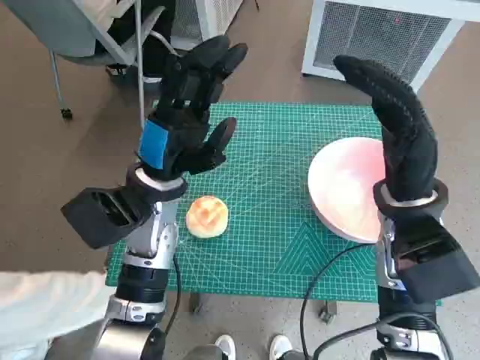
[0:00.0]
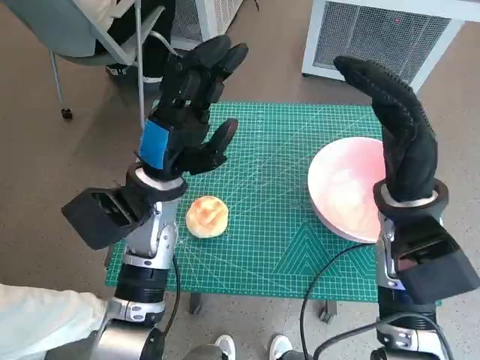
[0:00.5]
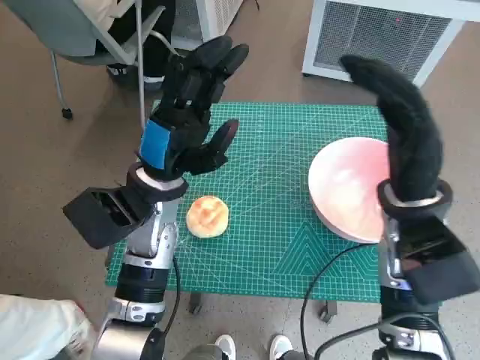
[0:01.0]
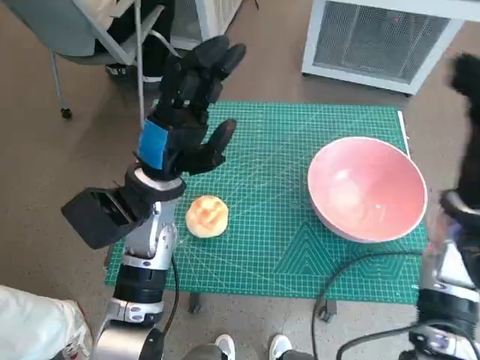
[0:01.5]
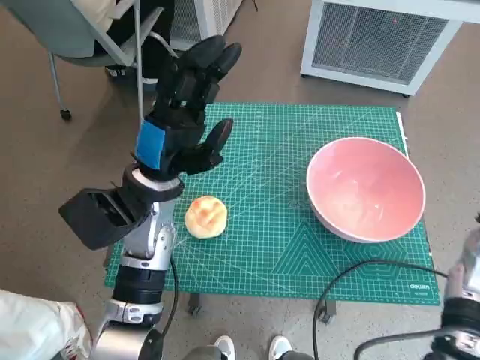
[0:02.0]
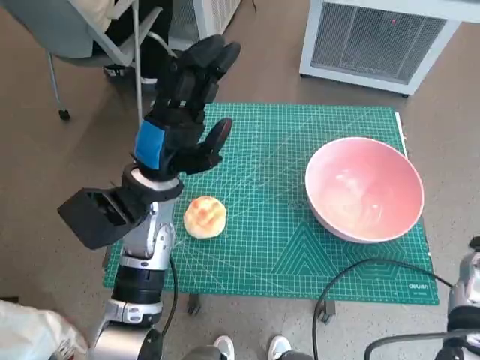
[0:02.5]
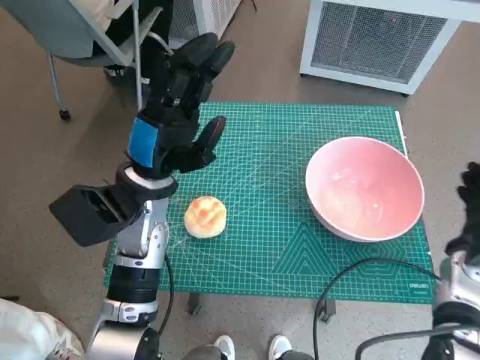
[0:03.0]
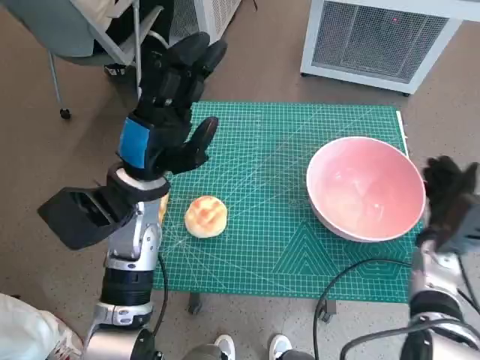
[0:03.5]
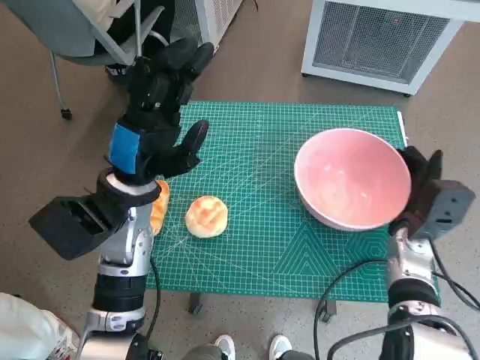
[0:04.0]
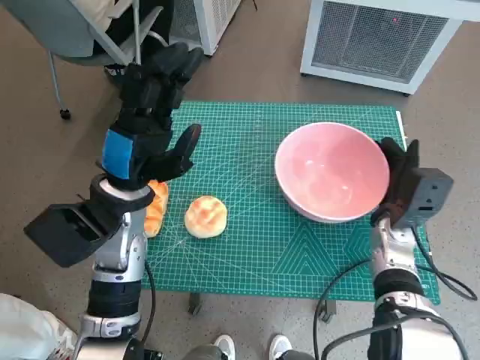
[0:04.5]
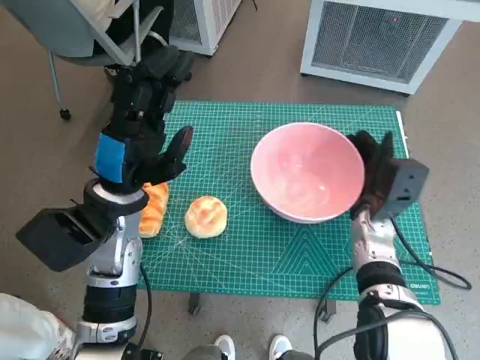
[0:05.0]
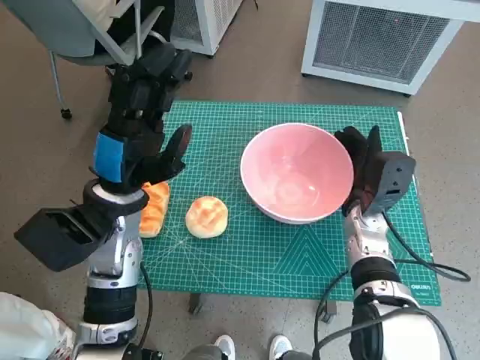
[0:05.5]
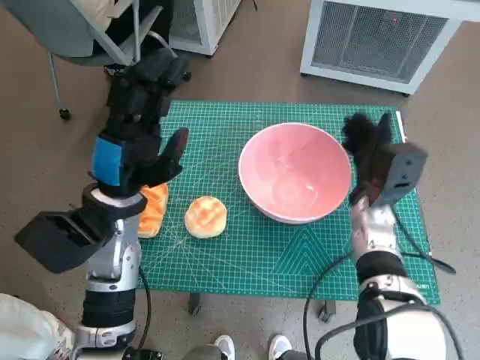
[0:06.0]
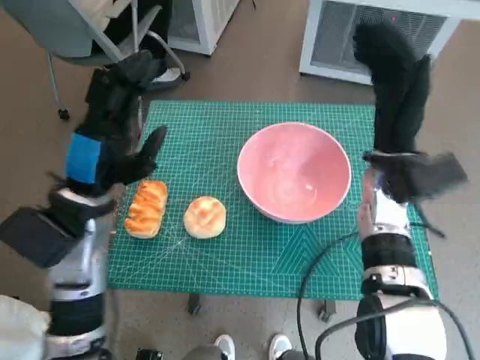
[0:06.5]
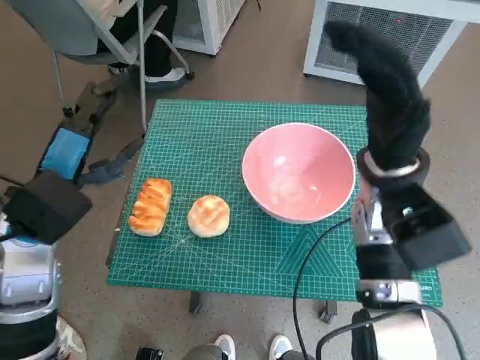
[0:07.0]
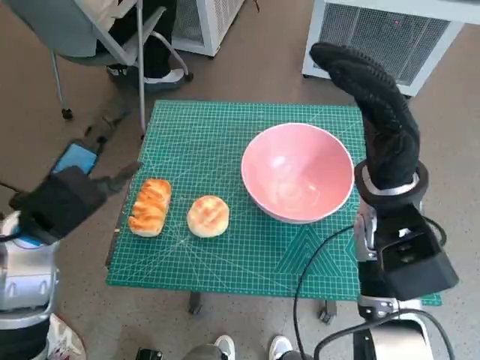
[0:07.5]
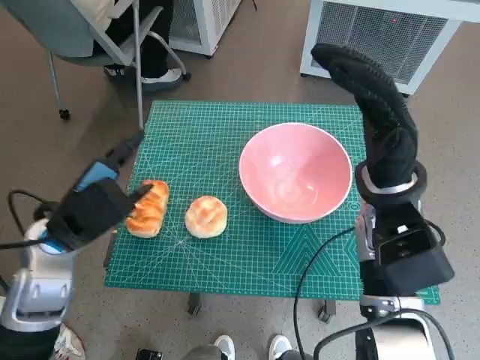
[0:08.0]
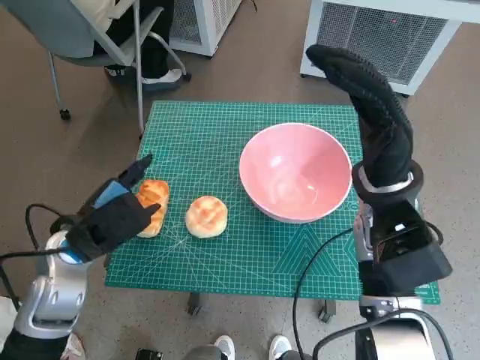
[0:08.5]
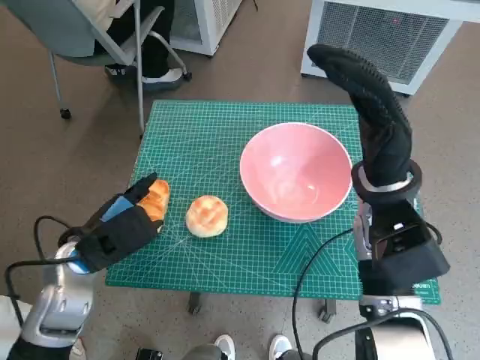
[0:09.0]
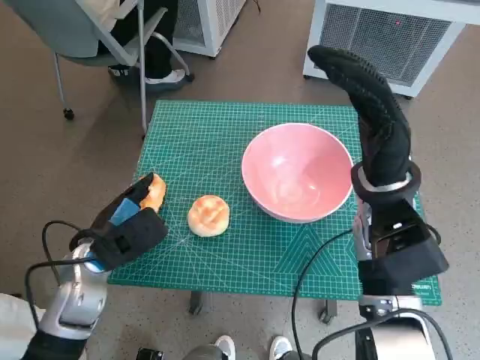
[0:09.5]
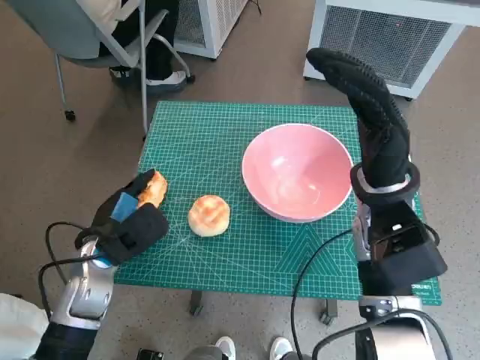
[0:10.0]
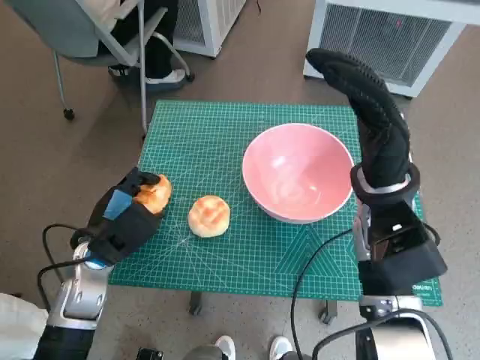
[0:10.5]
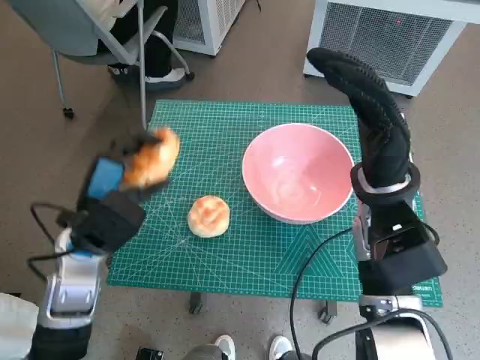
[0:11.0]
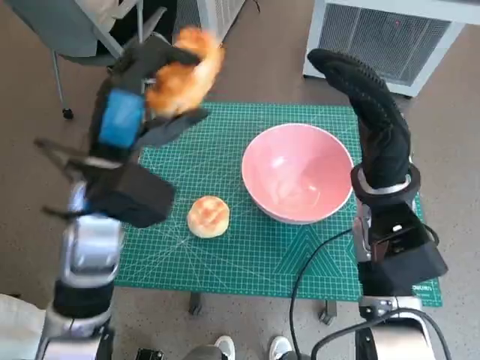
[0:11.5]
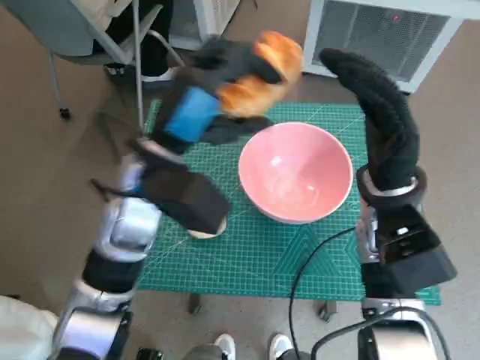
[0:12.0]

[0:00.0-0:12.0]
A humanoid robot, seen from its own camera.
Task of the whole recording: Push the bowl to the center of the table and put the bread into the bowl.
Step, 0:00.0 to 0:06.0: Move the pink bowl to the center of table with right hand.
Step, 0:06.5 to 0:10.5: Grasp the long bread with left hand.
0:02.0 to 0:04.0: The right hand moves downward and to the left, approximately 10 cm.
0:04.0 to 0:06.0: The right hand is displaced to the left by approximately 5 cm.
0:06.0 to 0:08.0: The left hand travels to the left by approximately 5 cm; the right hand goes approximately 10 cm upward.
0:08.0 to 0:10.0: The left hand is displaced downward by approximately 10 cm.
0:10.0 to 0:12.0: The left hand is displaced upward and to the right by approximately 20 cm.

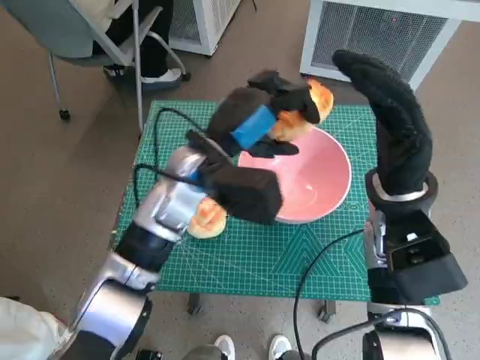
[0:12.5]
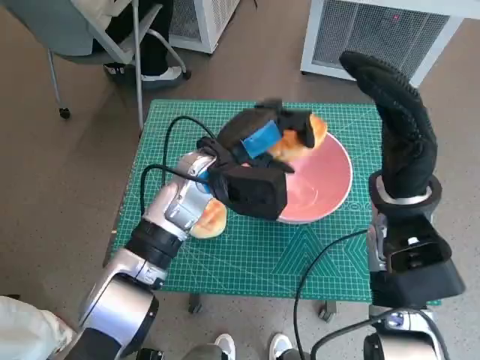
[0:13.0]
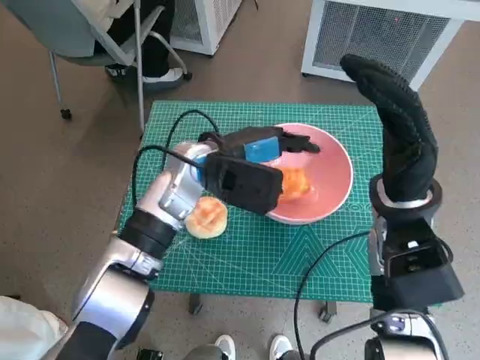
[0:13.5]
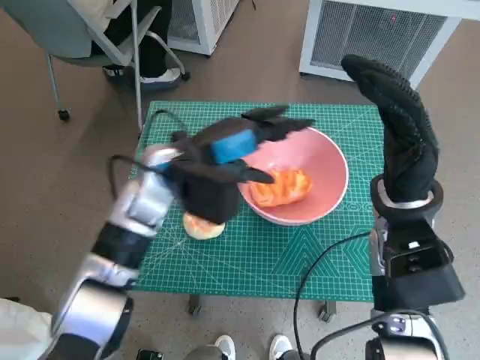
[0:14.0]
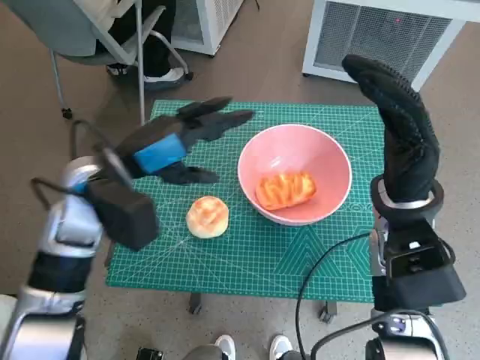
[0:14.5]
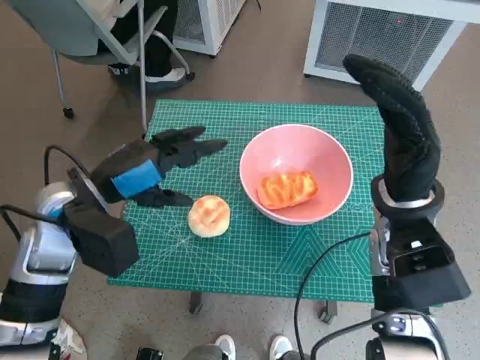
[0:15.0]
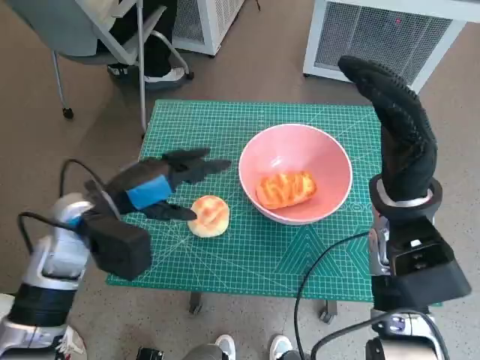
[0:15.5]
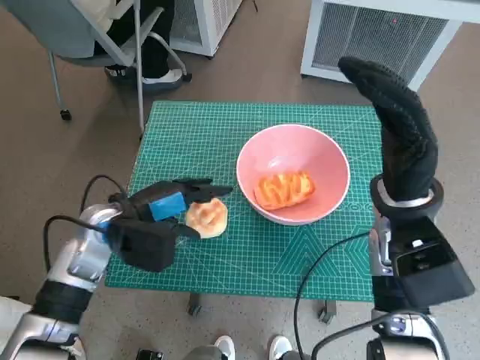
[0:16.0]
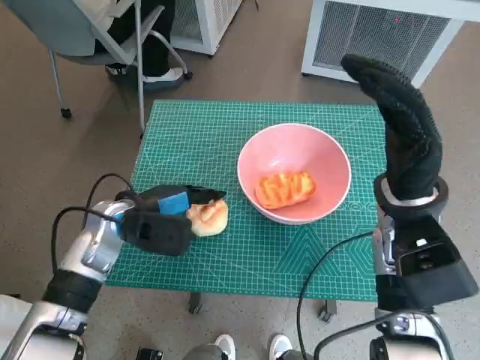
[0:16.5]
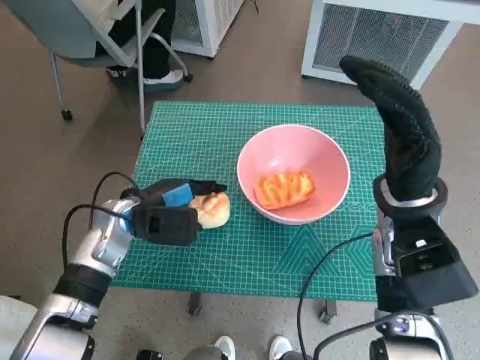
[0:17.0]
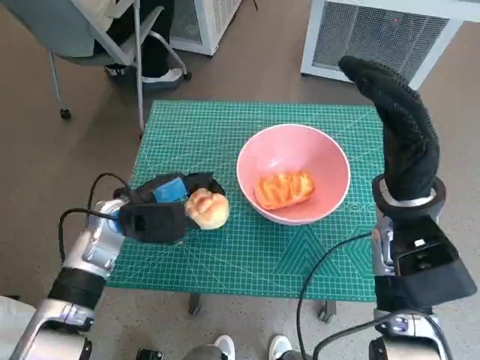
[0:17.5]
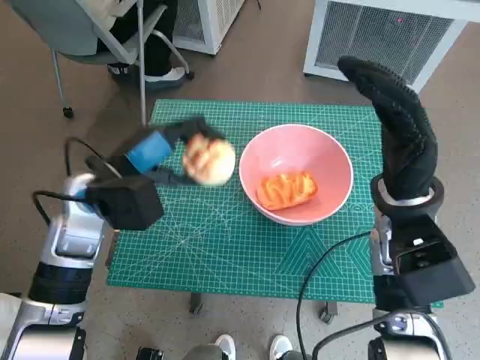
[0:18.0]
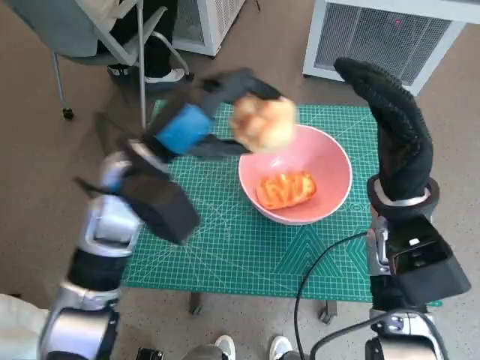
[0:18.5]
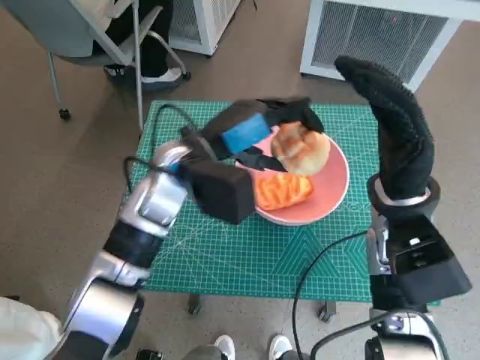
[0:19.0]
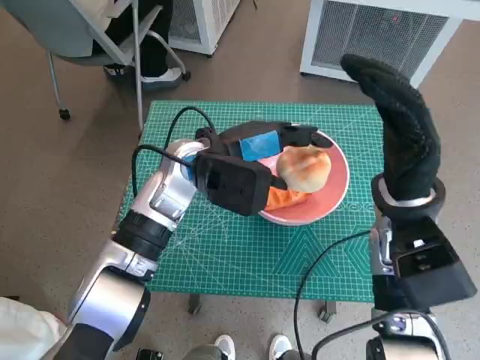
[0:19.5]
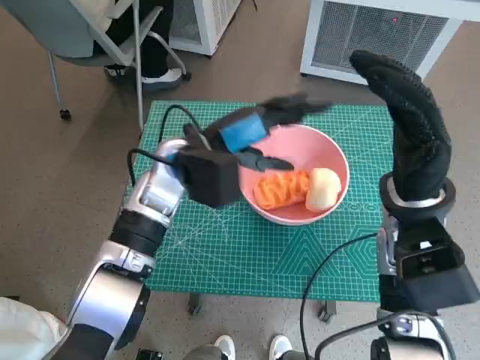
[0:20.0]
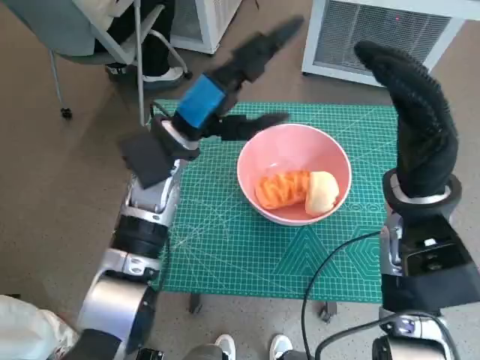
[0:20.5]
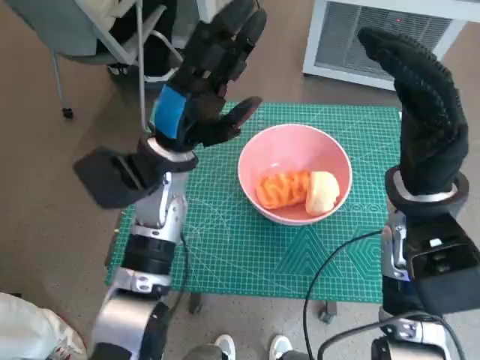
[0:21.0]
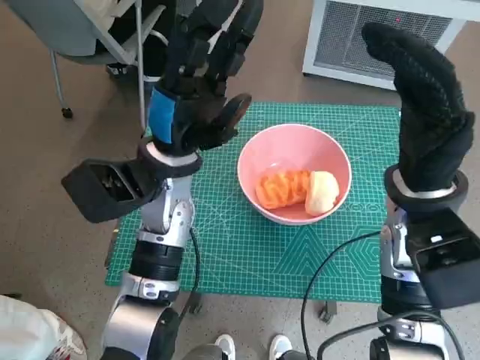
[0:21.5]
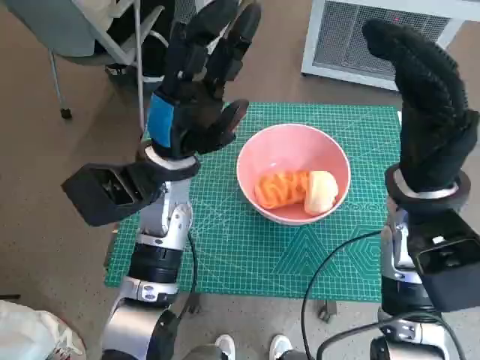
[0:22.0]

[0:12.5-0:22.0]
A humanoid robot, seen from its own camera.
Task of the whole recording: Push the bowl to the center of the table and put the bread into the bowl.
Step, 0:14.5 to 0:16.5: Grasp the round bread with left hand.
Step, 0:17.0 to 0:20.5: Place the round bread in pink bowl with left hand.
0:12.5 to 0:14.5: The left hand travels to the left by approximately 10 cm.
0:14.5 to 0:16.5: The left hand heads downward, covering some 10 cm.
0:16.5 to 0:18.0: The left hand travels upward by approximately 5 cm.
0:18.0 to 0:20.0: The left hand moves to the right, roughly 10 cm.

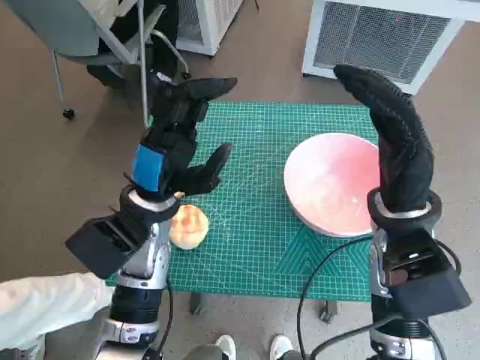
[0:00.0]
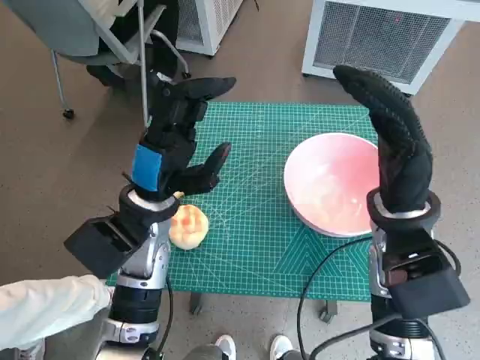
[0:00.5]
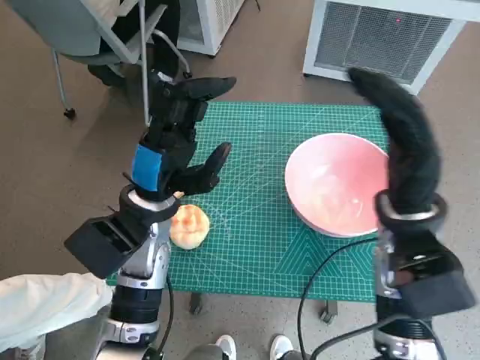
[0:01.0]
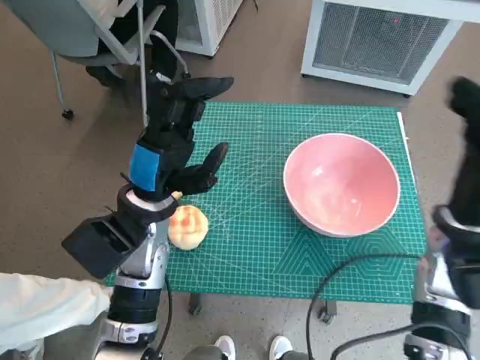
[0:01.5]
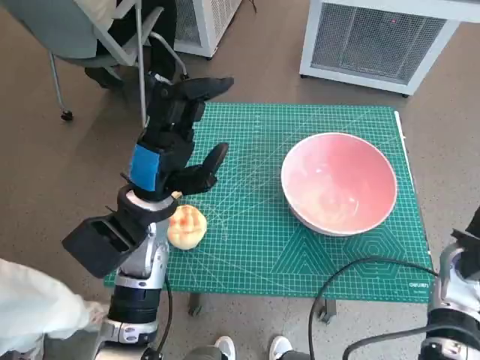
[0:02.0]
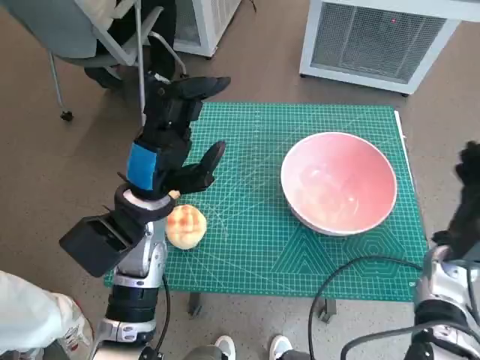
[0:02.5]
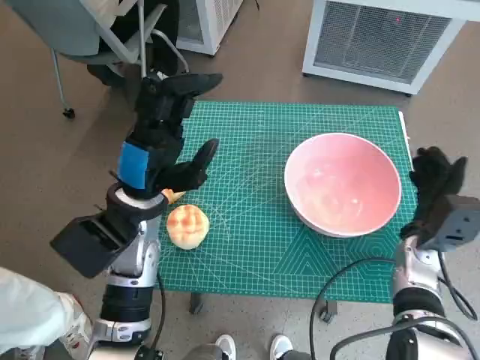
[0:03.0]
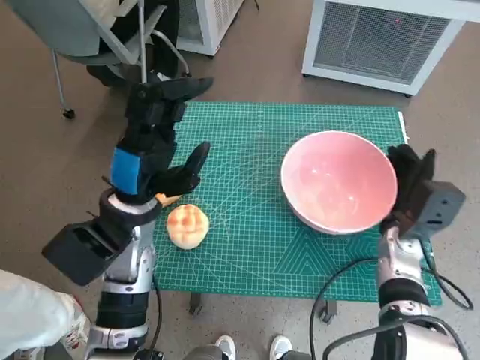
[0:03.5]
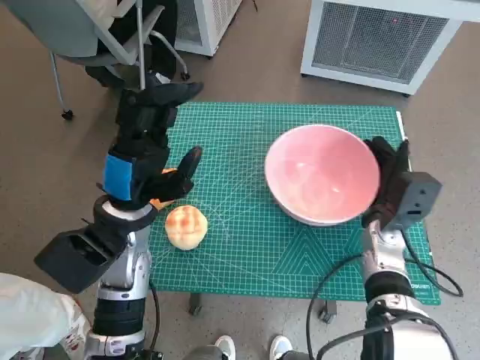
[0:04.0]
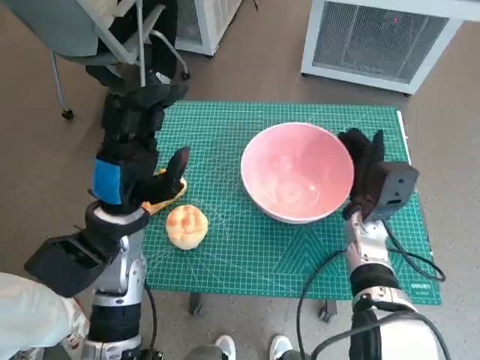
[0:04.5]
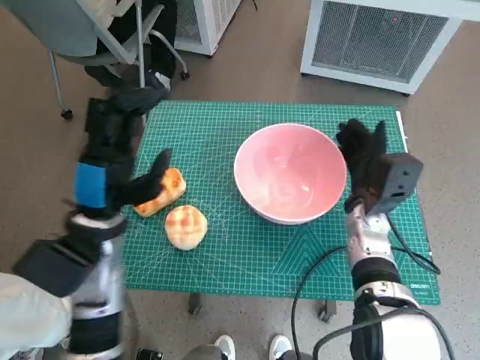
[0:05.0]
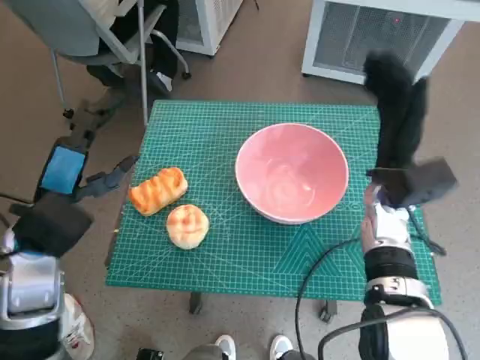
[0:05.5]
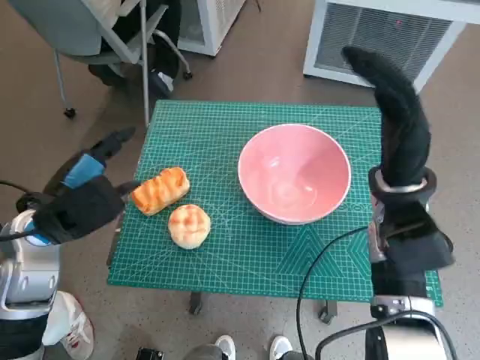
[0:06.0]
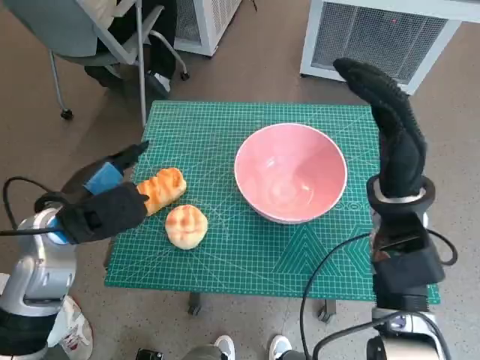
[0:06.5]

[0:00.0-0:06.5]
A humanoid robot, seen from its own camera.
Task of the whole recording: Push the bowl to the center of the table and put the bread into the bowl.
Step, 0:00.0 to 0:05.0: Move the pink bowl to the center of table with right hand.
0:02.0 to 0:04.5: The right hand goes some 10 cm to the left and forward.
0:04.5 to 0:06.5: The right hand heads upward, covering about 10 cm. The left hand goes approximately 5 cm to the left.
